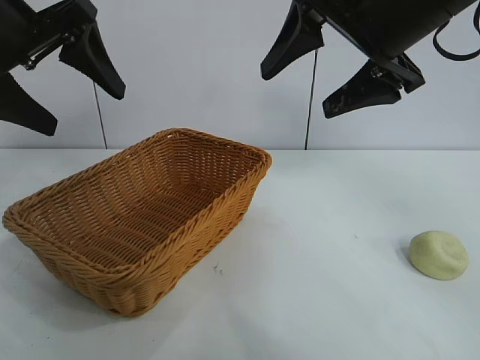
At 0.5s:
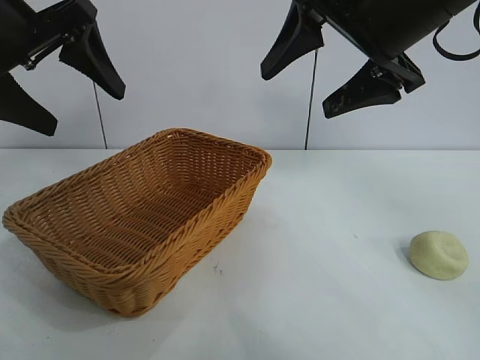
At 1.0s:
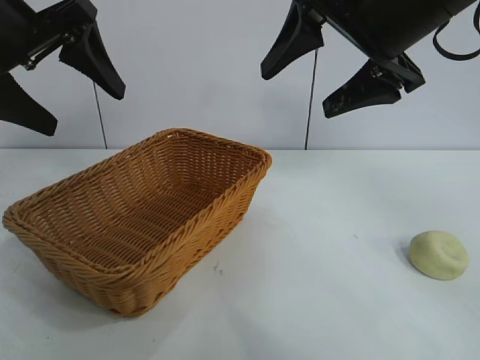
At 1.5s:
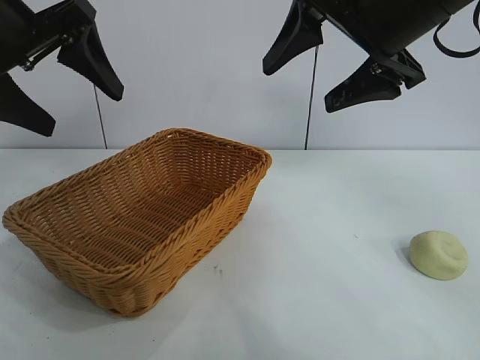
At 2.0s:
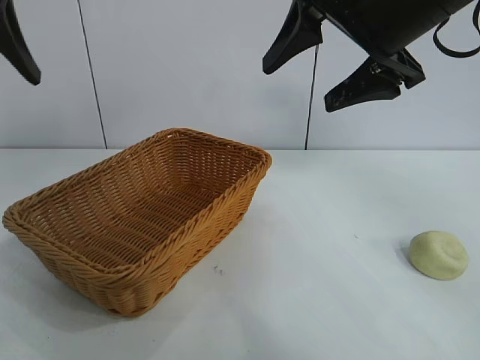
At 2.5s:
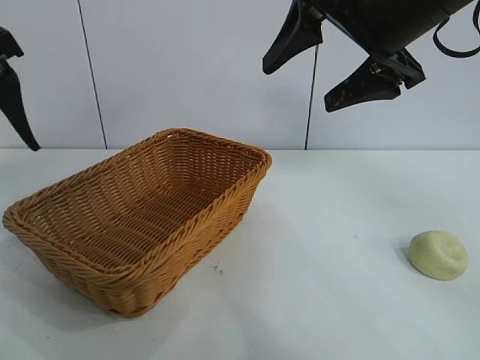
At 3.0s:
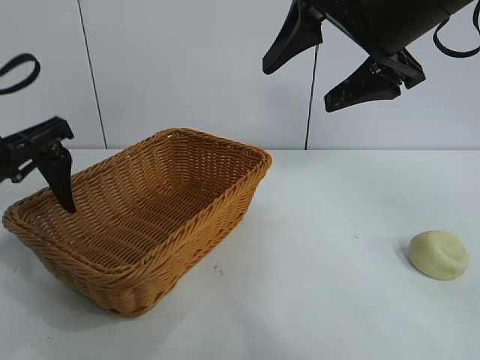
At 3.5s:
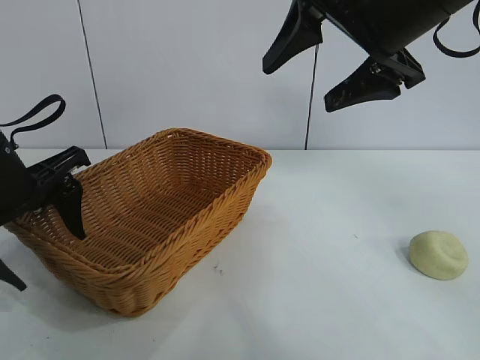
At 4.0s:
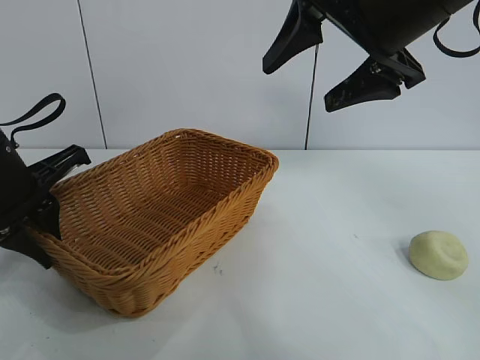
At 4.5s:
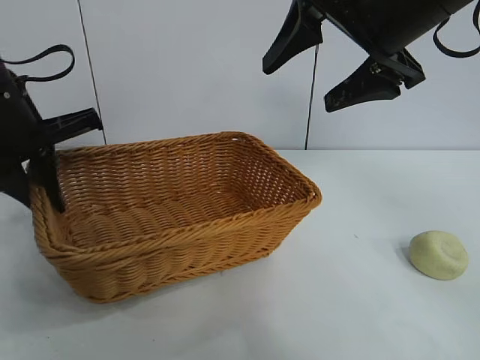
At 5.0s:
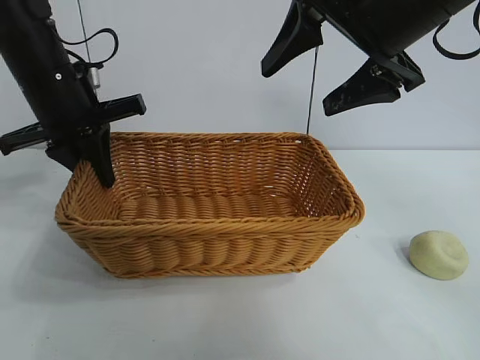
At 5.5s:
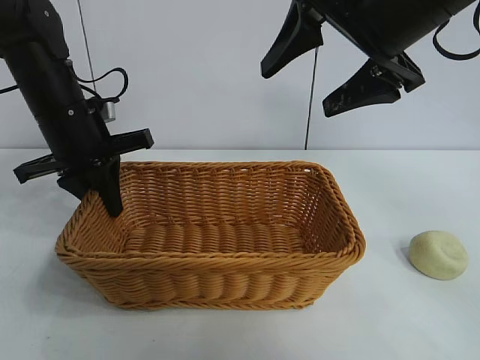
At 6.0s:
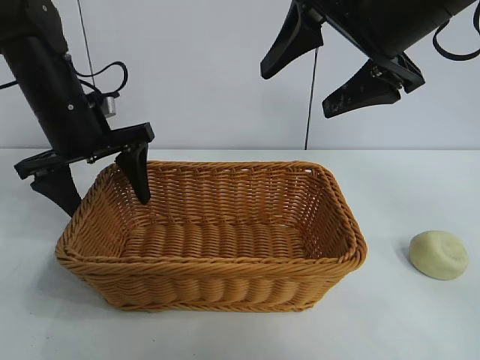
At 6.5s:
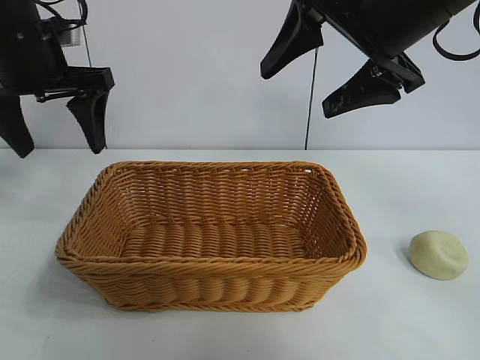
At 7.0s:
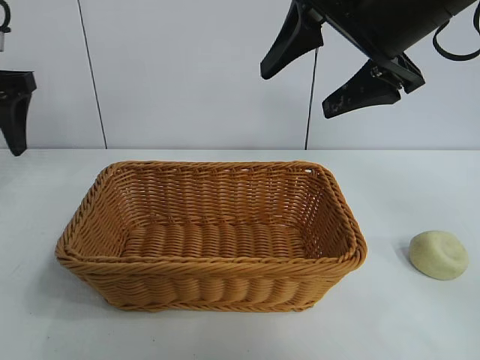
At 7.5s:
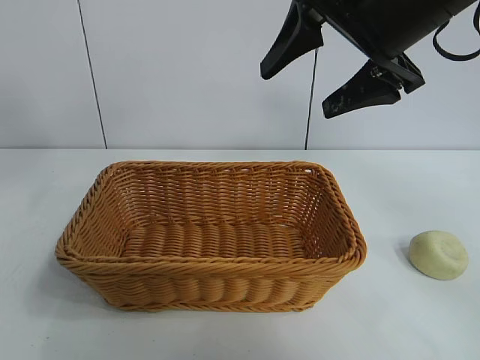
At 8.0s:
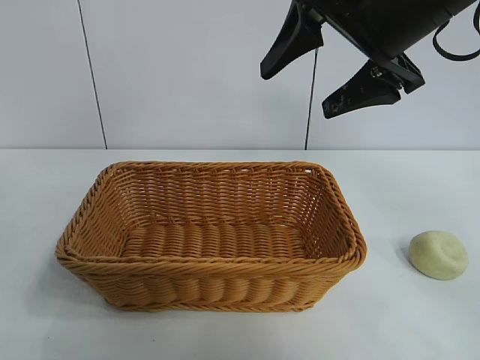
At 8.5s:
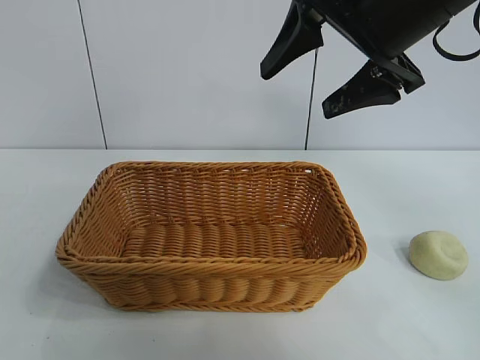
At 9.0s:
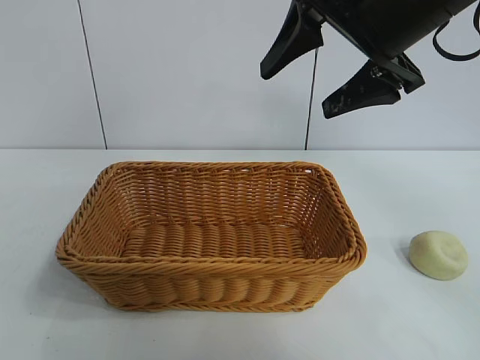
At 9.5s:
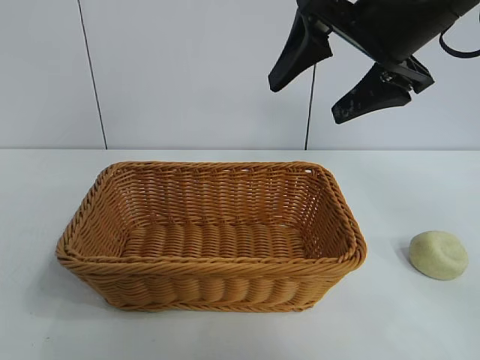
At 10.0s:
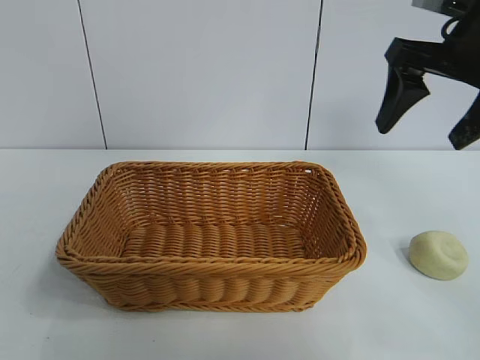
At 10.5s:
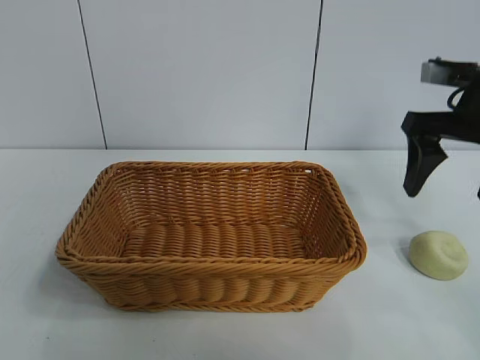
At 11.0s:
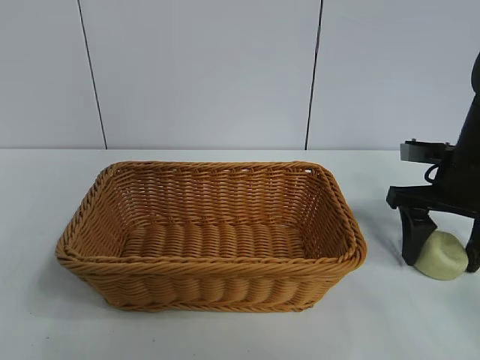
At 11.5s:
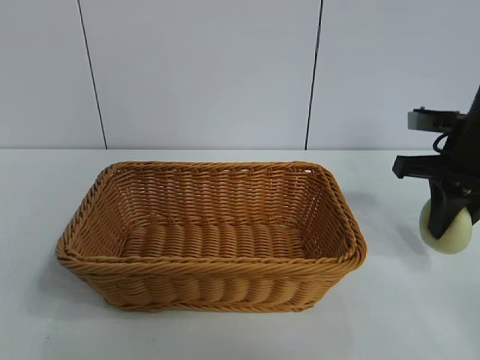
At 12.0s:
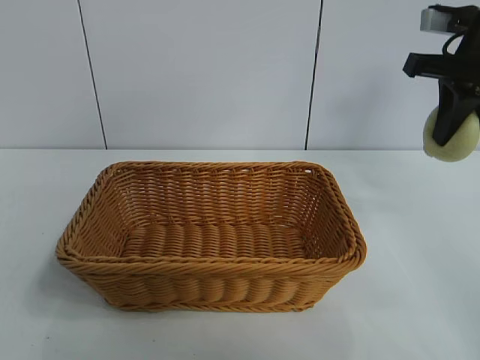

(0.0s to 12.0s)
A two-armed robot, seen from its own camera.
Task of the whole recording: pick up the egg yolk pastry and put it into the basket.
Step, 1.5s - 3.5s: Grasp the basket with left gripper.
Step, 4.0s - 5.5s: Place the basket in the center of view with left gripper.
Step, 6.0s - 11.0s: Grasp egg yolk pastry with right gripper.

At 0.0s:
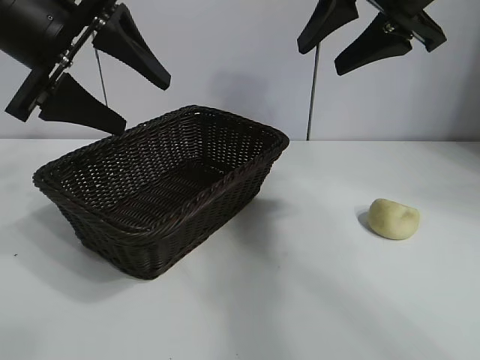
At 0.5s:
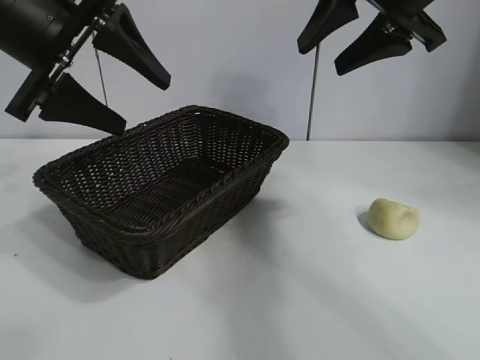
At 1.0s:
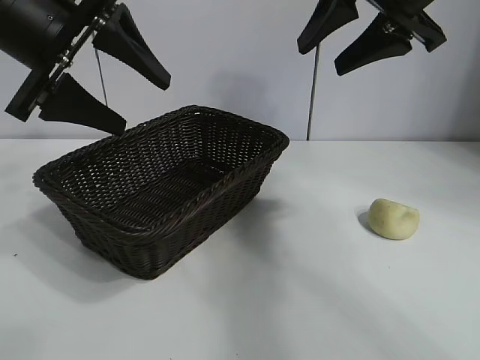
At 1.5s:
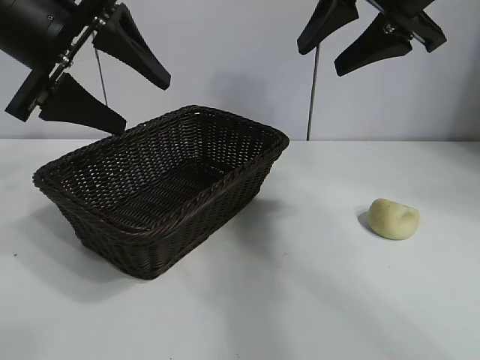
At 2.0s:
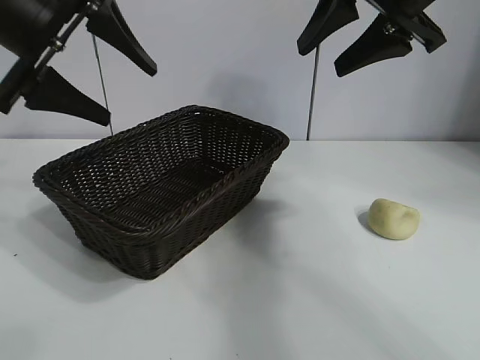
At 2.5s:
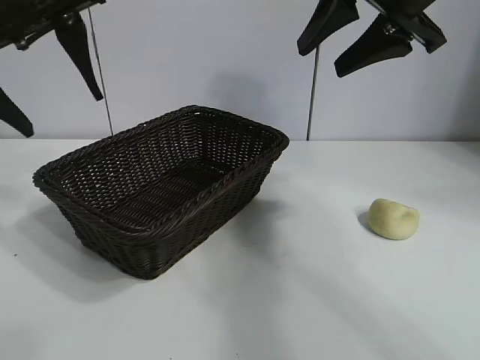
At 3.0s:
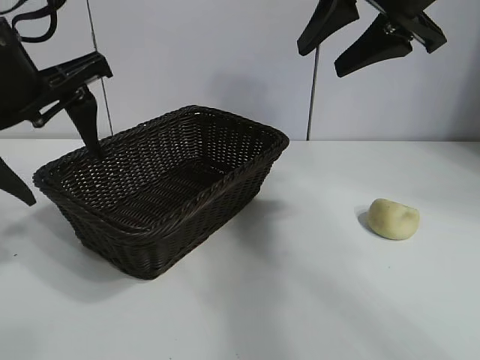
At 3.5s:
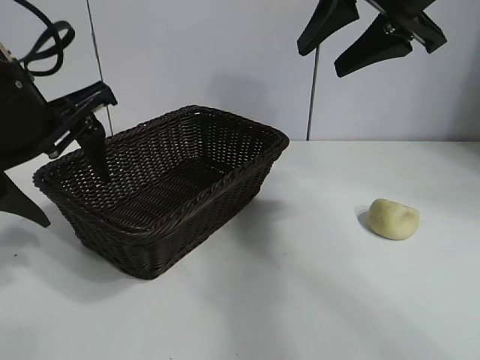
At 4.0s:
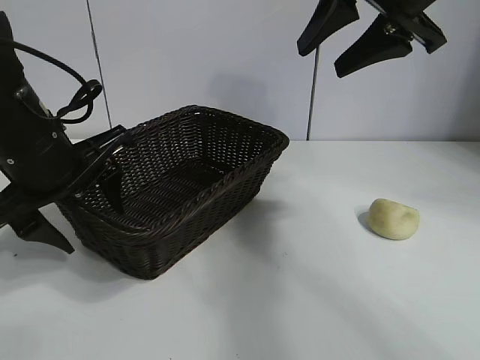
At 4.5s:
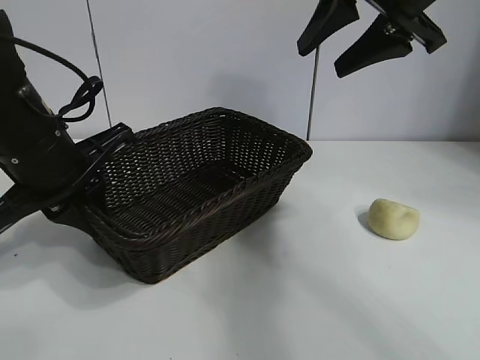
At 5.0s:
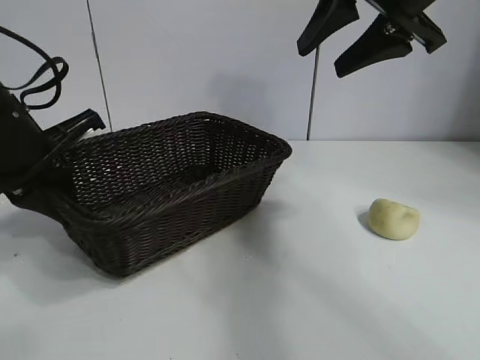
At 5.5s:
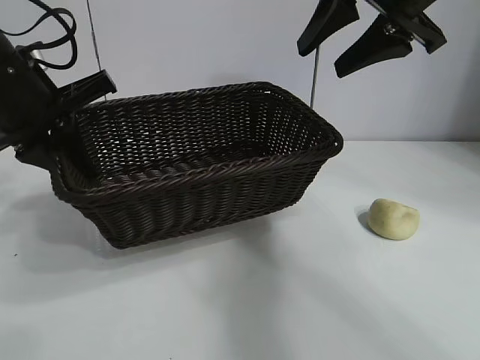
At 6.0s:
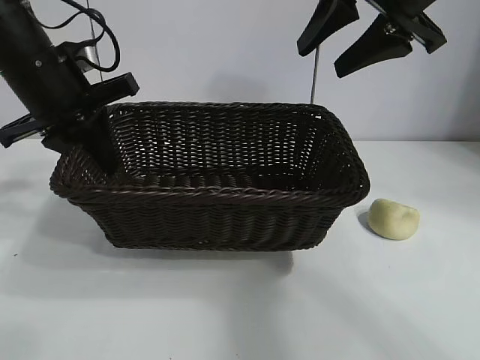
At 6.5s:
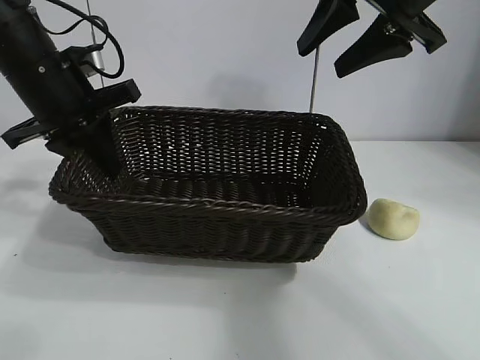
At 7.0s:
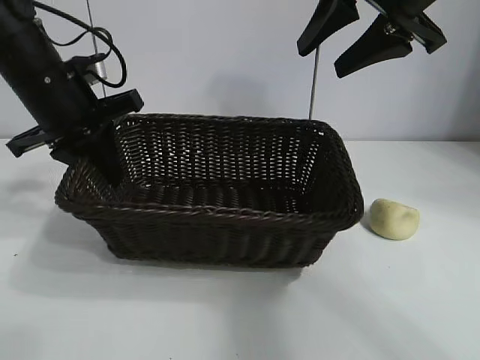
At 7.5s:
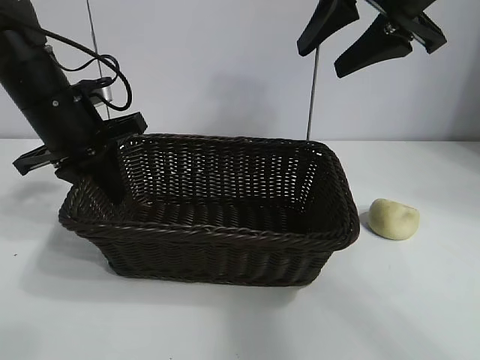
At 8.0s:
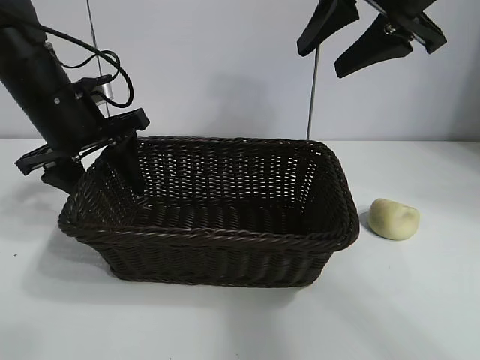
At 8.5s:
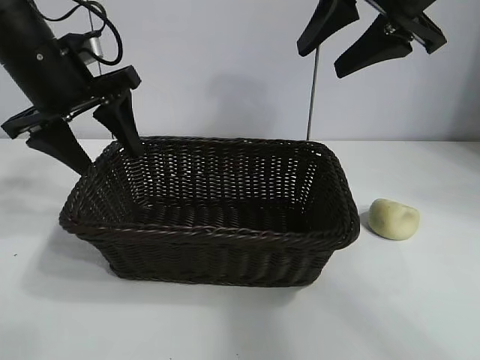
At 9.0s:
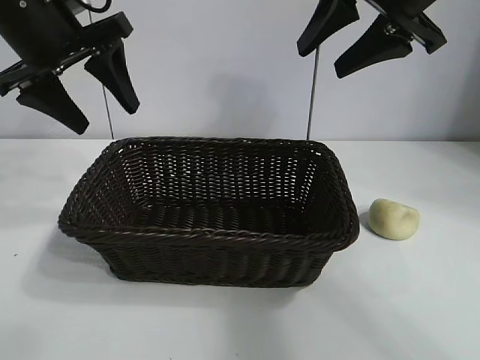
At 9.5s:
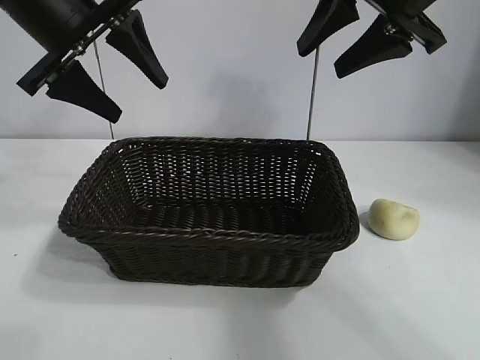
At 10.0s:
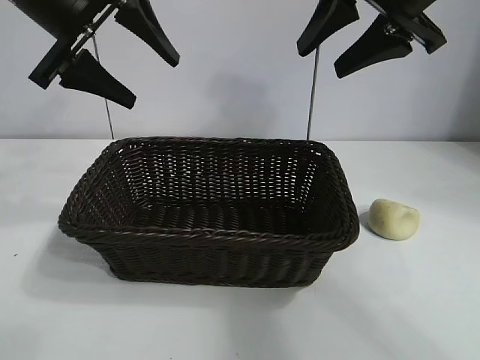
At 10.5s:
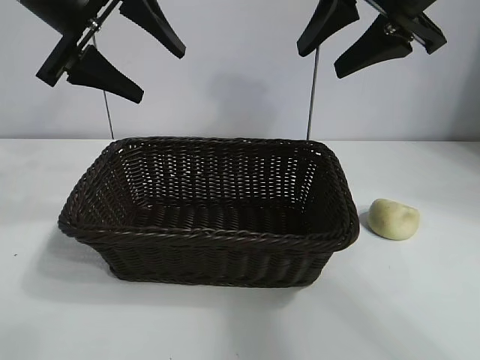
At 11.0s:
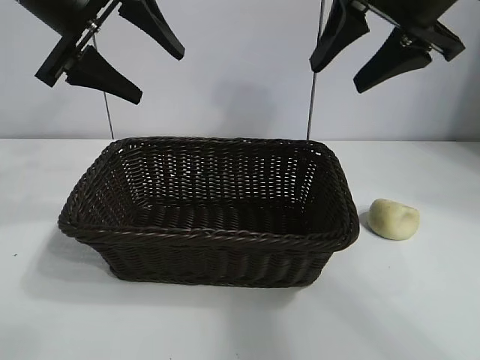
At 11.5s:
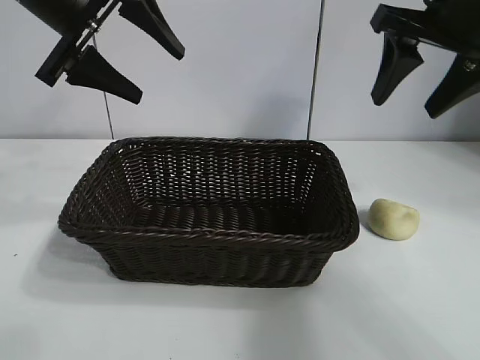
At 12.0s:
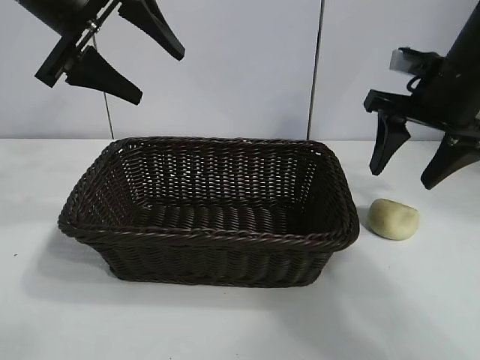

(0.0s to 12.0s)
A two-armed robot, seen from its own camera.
Task of the whole recording: pick up the egg yolk pastry and put it into the basket.
Step, 2.0s - 4.0s: Grasp the basket with left gripper.
Step, 4.5s - 8.0s: Place the basket in the center of view with left gripper.
